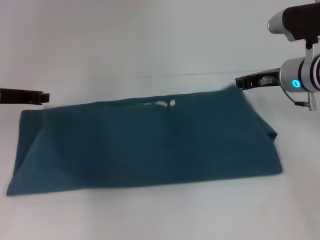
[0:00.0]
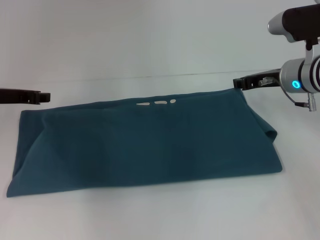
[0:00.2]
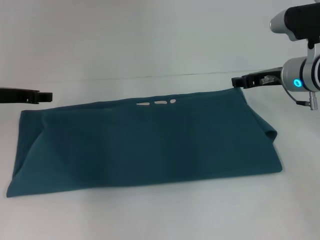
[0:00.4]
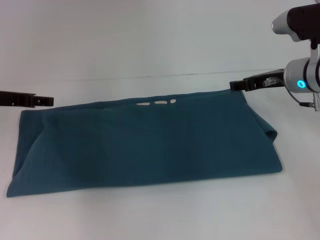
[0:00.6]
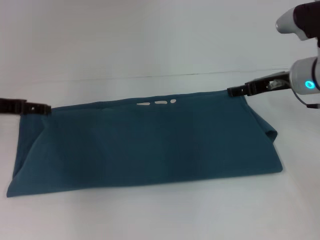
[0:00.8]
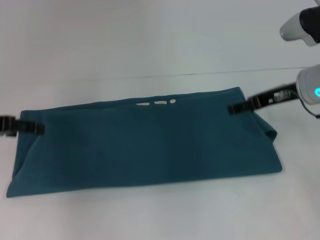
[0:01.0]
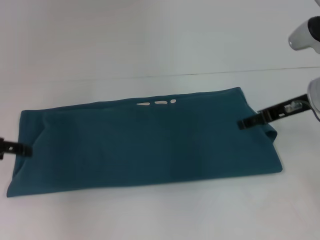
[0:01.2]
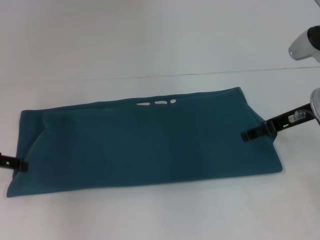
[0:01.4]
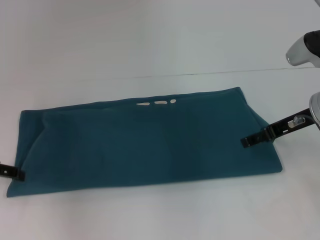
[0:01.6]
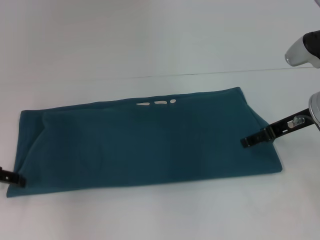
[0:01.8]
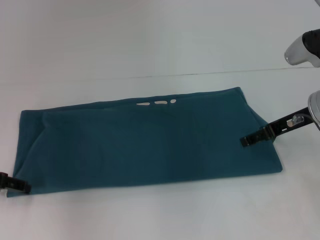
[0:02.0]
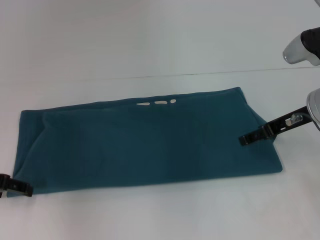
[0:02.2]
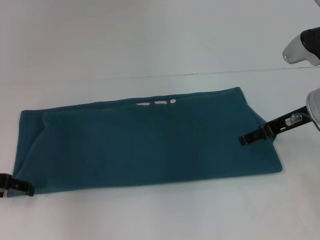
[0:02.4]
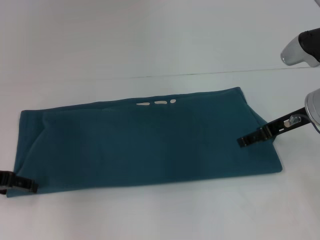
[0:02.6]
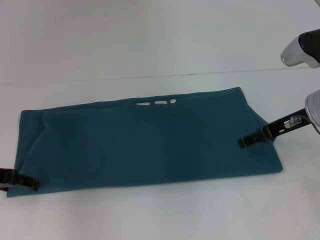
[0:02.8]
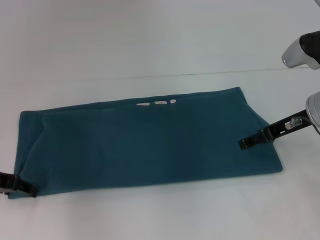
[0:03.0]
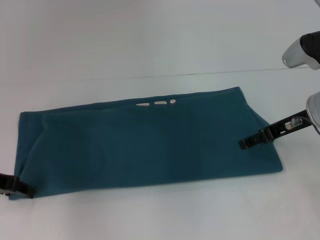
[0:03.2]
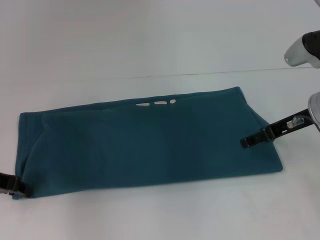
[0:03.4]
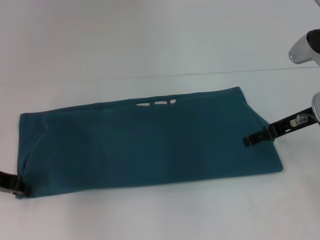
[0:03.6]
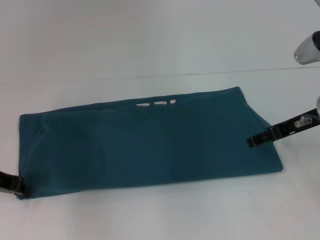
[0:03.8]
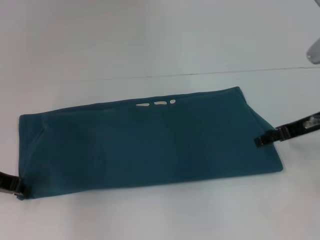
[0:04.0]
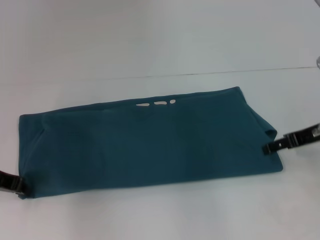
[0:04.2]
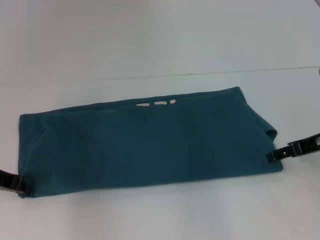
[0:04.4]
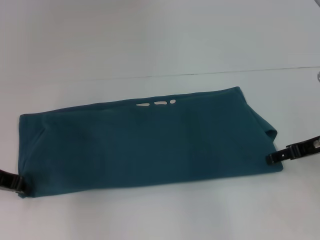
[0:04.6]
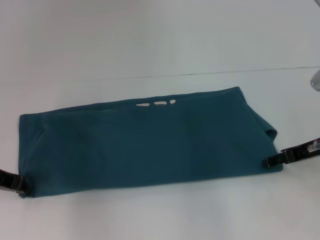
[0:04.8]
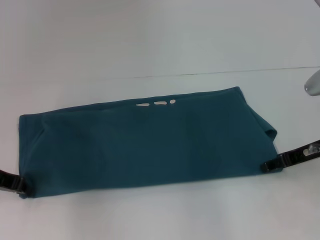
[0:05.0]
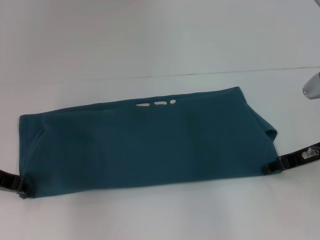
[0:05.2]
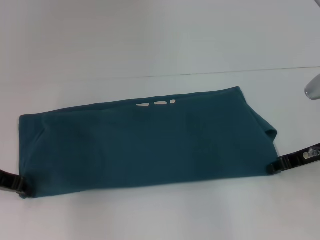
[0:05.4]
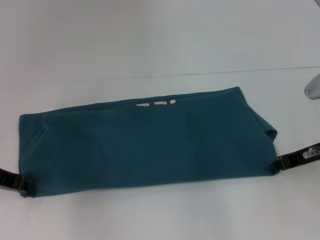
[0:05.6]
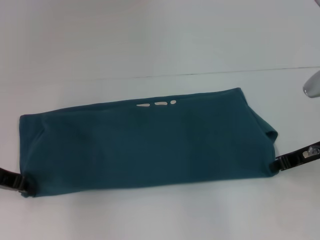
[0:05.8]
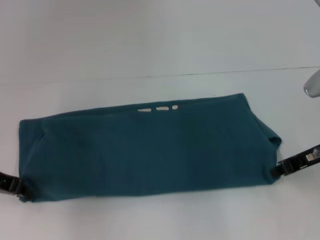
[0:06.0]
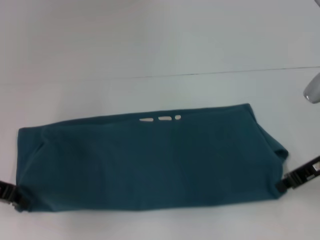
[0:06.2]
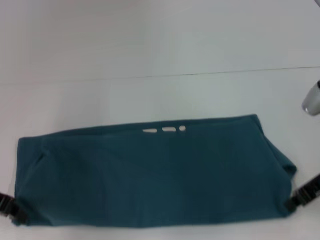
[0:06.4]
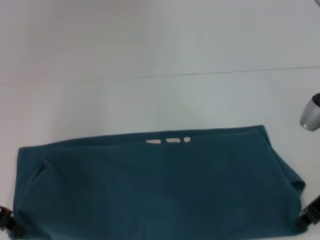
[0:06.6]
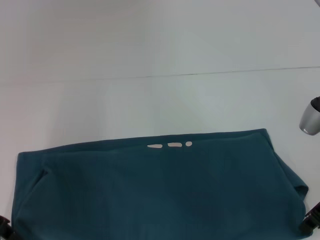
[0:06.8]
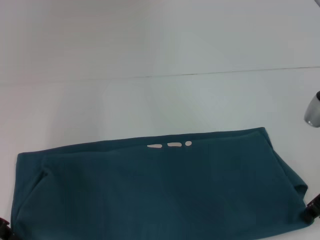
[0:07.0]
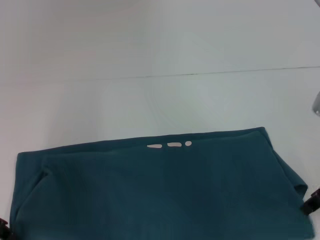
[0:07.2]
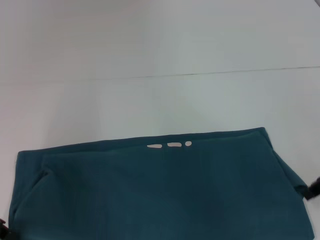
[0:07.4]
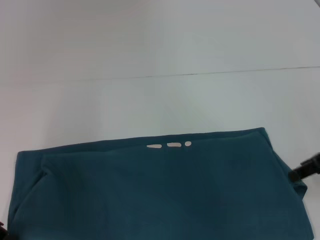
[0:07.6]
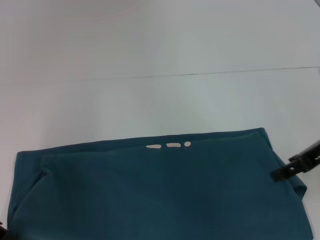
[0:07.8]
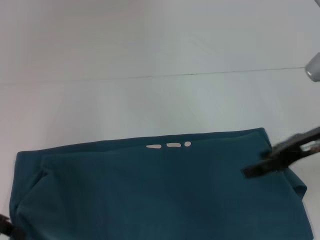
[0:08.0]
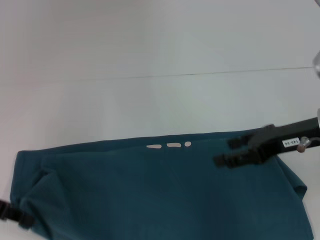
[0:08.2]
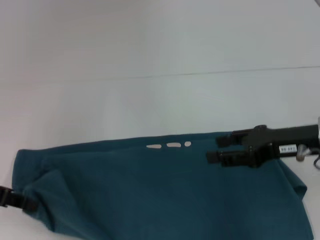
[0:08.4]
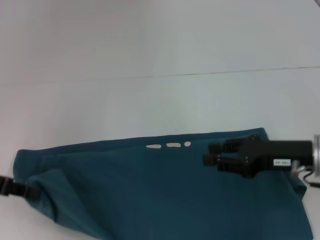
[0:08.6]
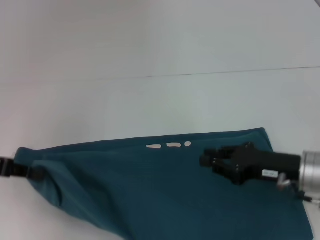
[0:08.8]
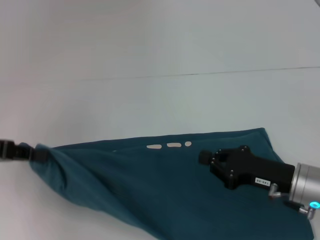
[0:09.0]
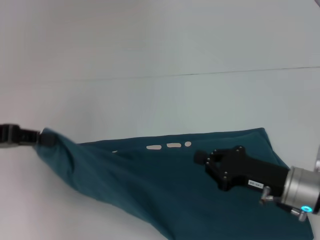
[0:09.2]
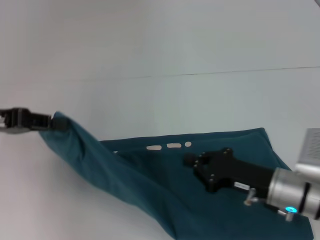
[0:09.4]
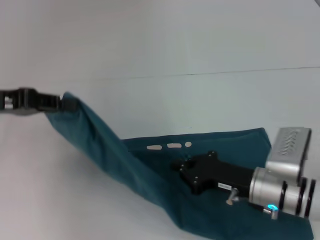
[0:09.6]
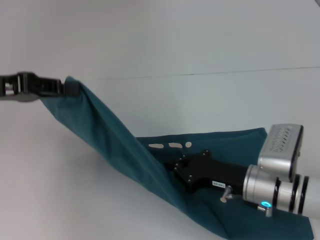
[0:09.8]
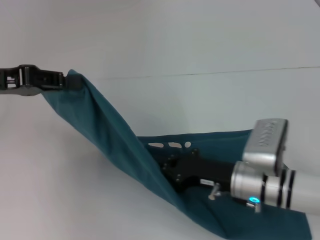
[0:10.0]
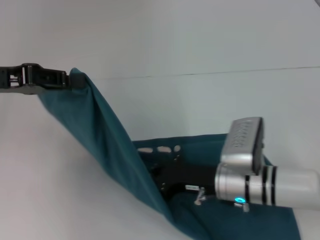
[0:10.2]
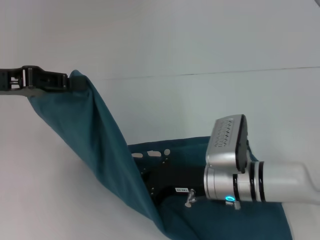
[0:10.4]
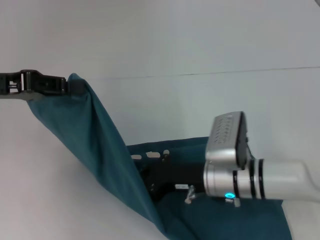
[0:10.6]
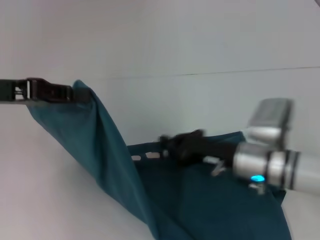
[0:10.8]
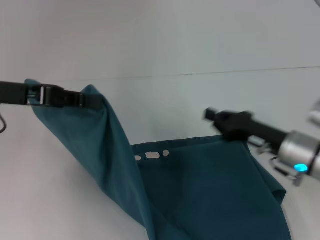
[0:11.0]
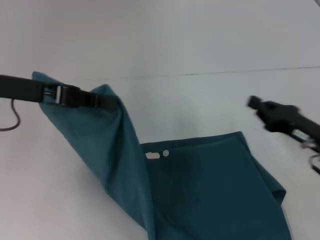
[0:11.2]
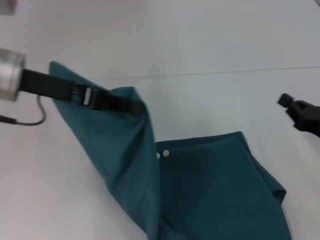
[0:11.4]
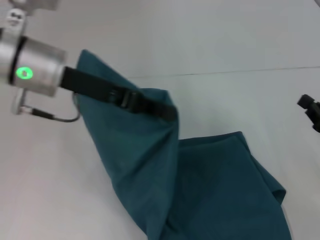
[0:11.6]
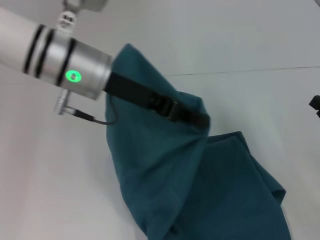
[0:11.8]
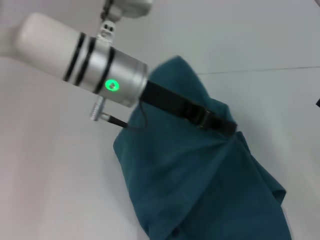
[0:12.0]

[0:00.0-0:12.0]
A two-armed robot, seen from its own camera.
Step, 0:00.6 to 0:07.0: Pull the clothes with your left hand.
Step, 0:00.6 to 0:07.0: Pull the clothes with your right hand.
Step, 0:07.2 to 0:10.6: Press the middle of the clothes with your right hand.
0:00.0 to 0:01.6: The left gripper travels backward and to the left by about 10 cm, and opens. Meanwhile the right gripper shifts about 5 cm backward, and opens up.
0:01.6 to 0:03.0: The grippers move only a little.
0:03.0 to 0:04.4: The right gripper changes place by roughly 5 cm; the left gripper closes its fingers.
0:04.4 to 0:06.0: The right gripper closes its fingers.
0:06.0 to 0:07.6: The right gripper shifts approximately 5 cm upward, and opens up.
0:07.6 to 0:09.0: The right gripper goes roughly 15 cm downward and to the left, and opens and closes again.
0:09.0 to 0:10.4: The left gripper ends up about 5 cm from where it was. The right gripper travels to the left by some 10 cm.
0:10.4 to 0:12.0: Both grippers travel together to the right, roughly 25 cm.

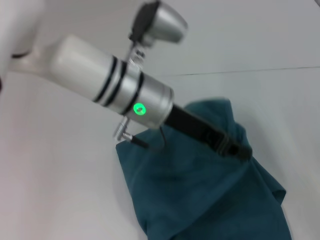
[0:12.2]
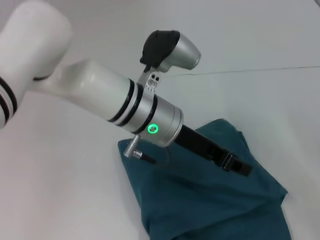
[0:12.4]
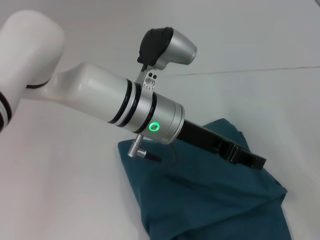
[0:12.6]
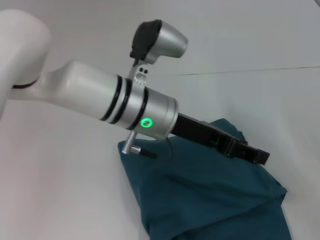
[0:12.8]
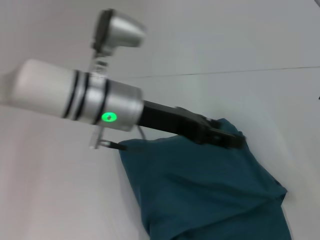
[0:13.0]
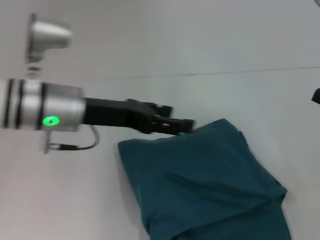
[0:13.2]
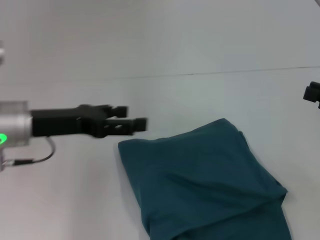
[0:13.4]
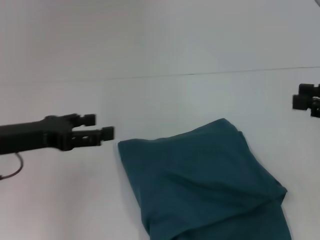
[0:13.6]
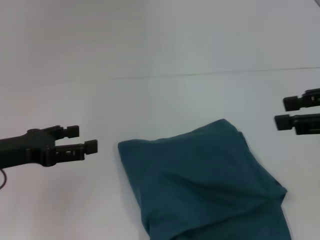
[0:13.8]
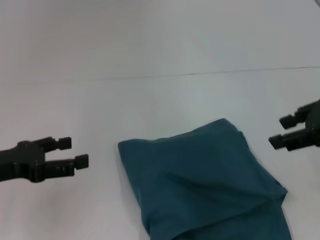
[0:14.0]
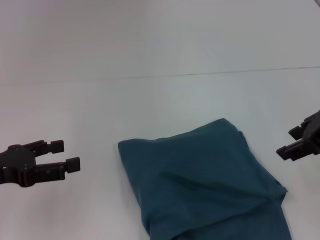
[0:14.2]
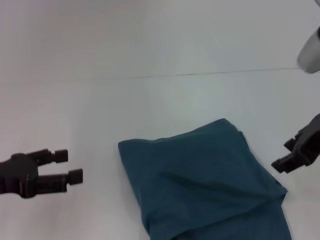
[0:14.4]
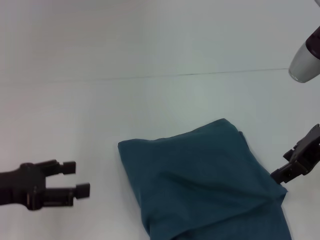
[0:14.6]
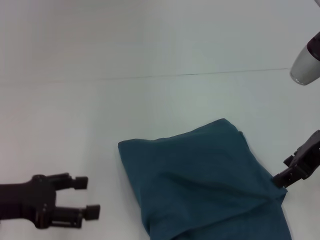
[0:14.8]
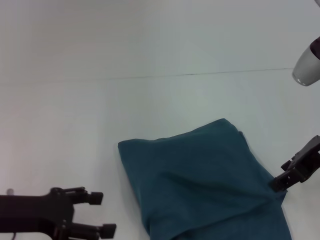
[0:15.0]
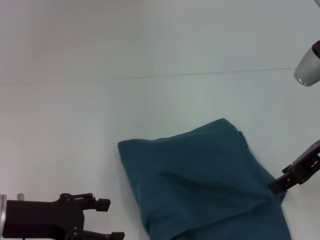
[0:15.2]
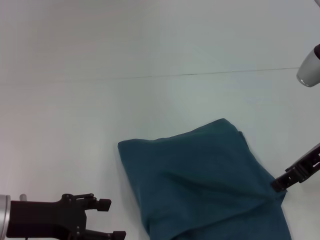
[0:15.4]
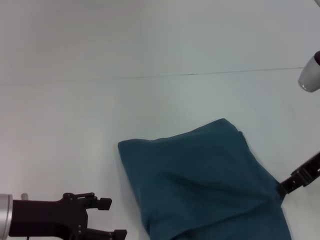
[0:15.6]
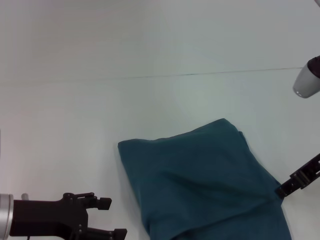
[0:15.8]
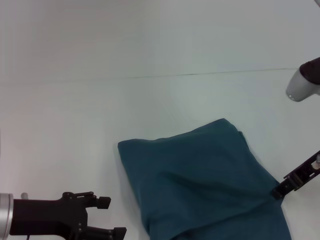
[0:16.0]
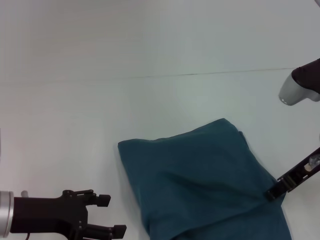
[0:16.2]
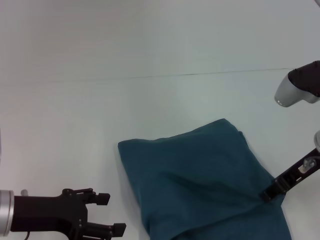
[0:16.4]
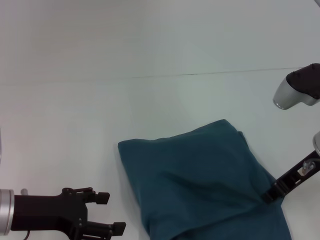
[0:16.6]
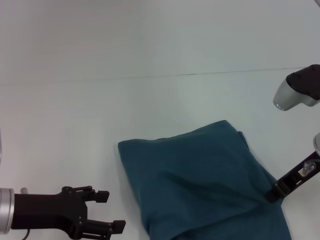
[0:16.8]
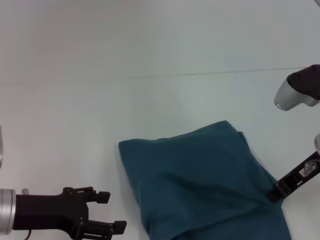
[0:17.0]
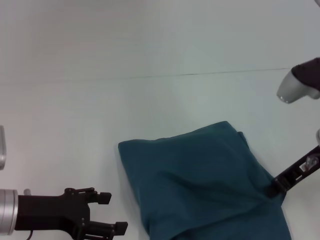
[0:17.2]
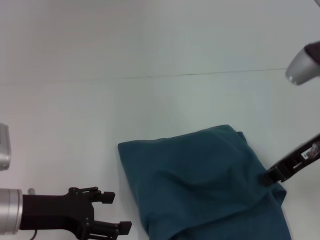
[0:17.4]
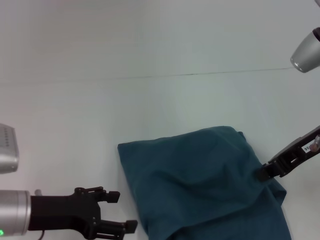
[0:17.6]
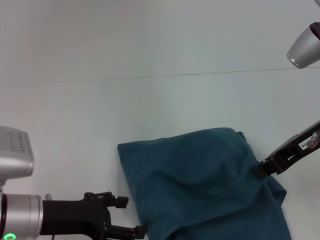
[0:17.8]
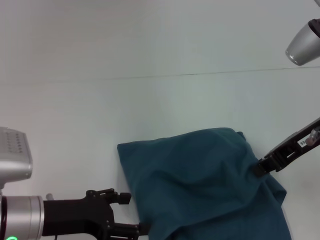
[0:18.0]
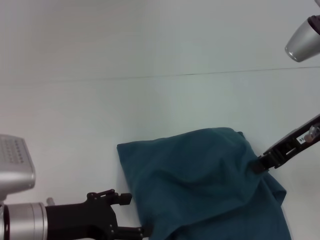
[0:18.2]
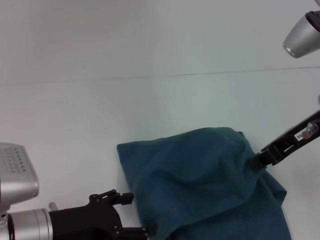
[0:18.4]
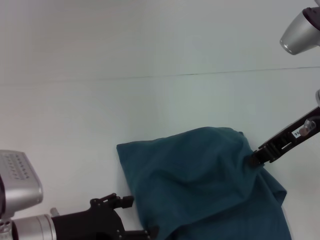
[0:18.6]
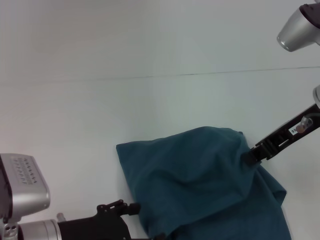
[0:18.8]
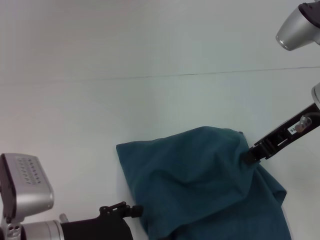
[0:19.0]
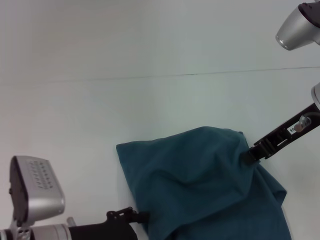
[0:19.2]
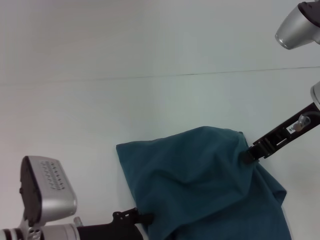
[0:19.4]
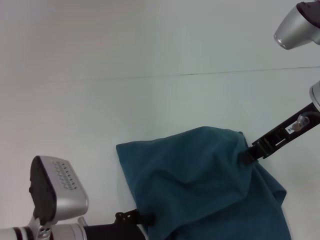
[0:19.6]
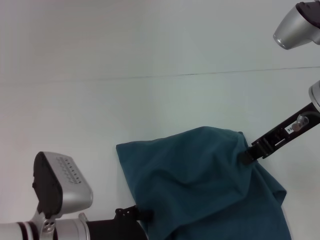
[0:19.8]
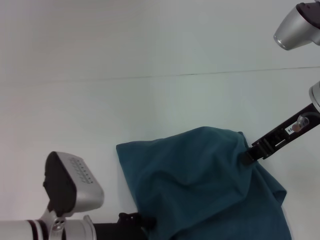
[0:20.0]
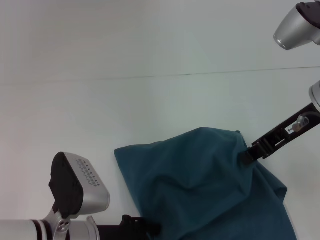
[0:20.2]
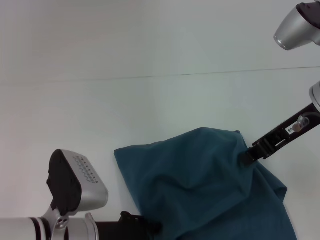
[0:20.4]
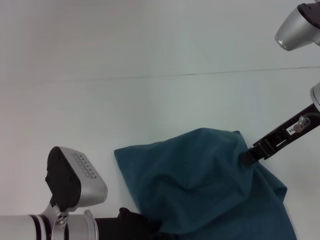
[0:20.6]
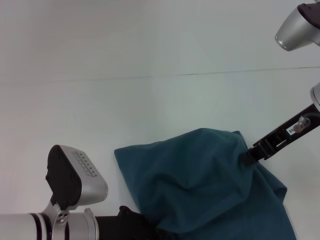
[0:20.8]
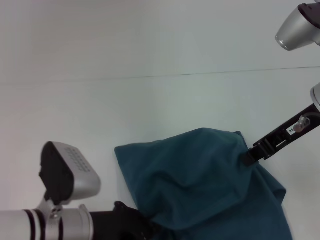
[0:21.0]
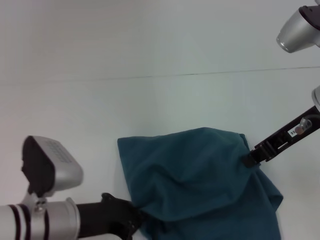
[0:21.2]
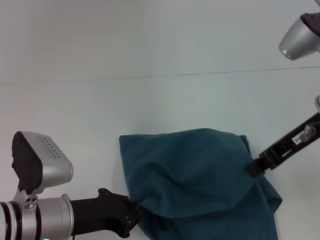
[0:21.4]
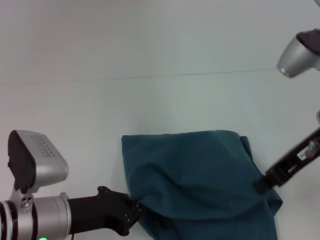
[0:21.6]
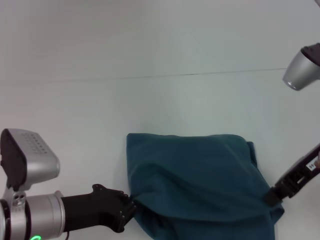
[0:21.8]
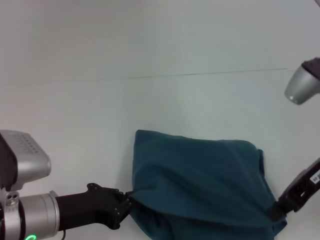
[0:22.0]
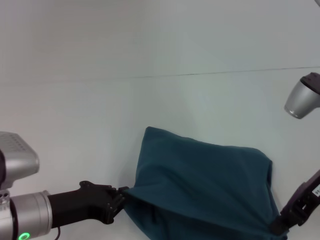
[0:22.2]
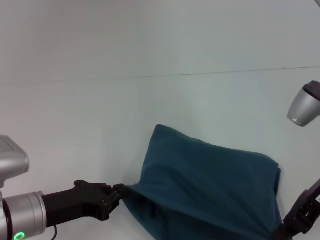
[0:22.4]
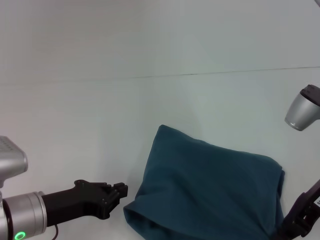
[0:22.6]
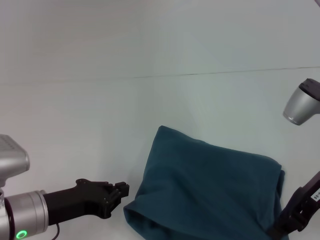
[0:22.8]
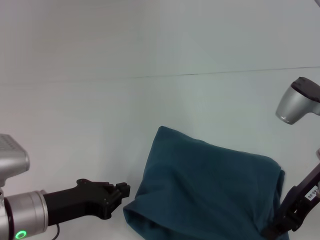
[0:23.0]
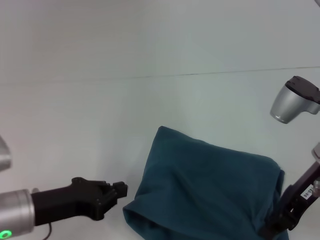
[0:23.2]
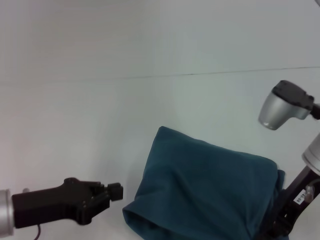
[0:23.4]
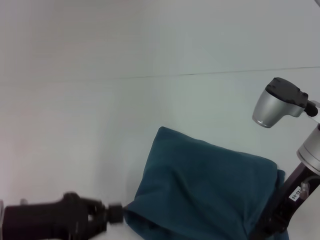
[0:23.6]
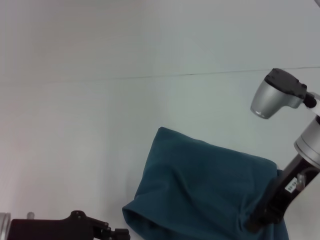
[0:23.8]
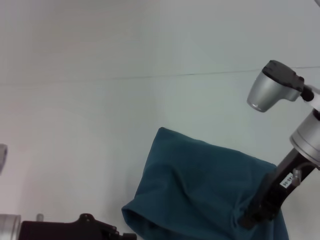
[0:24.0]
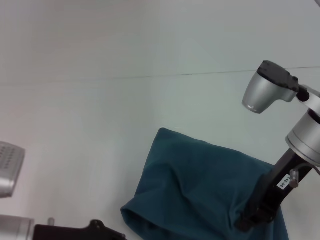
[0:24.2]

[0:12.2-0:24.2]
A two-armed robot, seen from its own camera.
0:12.2 to 0:13.8: The left gripper goes some 25 cm to the left, and opens its fingers. The right gripper goes some 20 cm upward, and opens up.
0:13.8 to 0:15.2: The left gripper ends up about 5 cm from where it was. The right gripper is displaced to the left by approximately 5 cm.
0:15.2 to 0:16.6: The right gripper travels downward by approximately 5 cm.
0:16.6 to 0:18.2: The right gripper heads upward, covering approximately 5 cm, and closes up.
0:18.2 to 0:19.8: The left gripper travels to the right by about 5 cm.
0:19.8 to 0:21.2: The left gripper closes.
0:21.2 to 0:22.6: The right gripper travels downward by roughly 5 cm.
0:22.6 to 0:24.2: The right gripper goes roughly 5 cm to the left.
